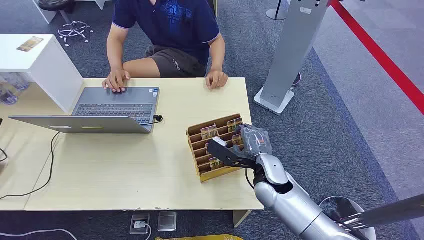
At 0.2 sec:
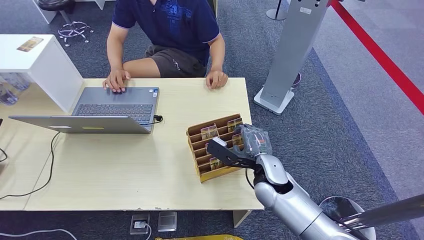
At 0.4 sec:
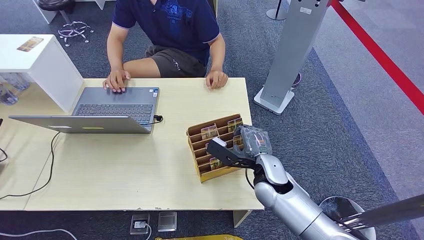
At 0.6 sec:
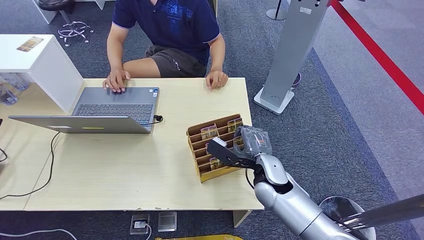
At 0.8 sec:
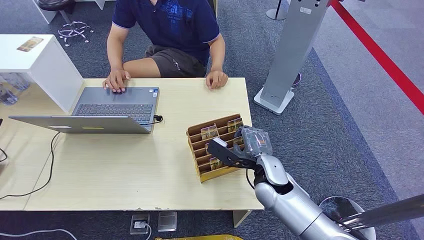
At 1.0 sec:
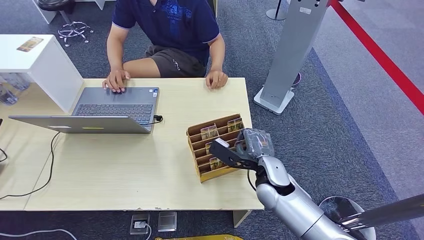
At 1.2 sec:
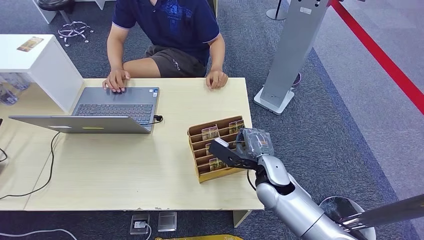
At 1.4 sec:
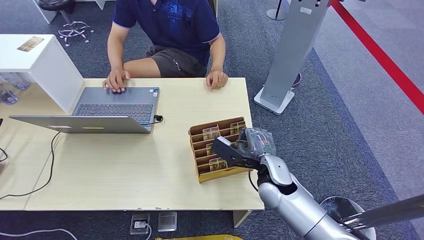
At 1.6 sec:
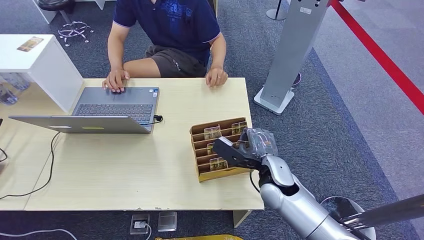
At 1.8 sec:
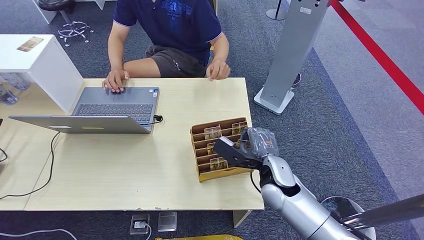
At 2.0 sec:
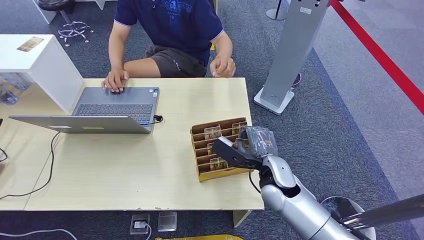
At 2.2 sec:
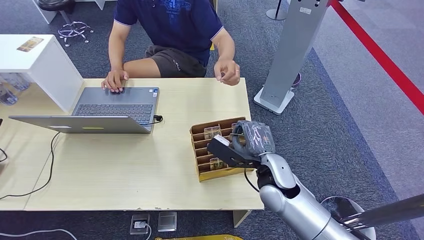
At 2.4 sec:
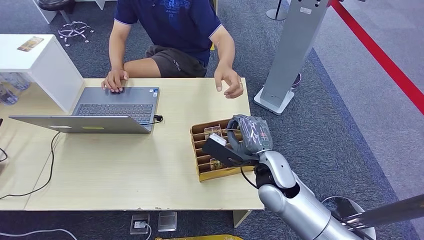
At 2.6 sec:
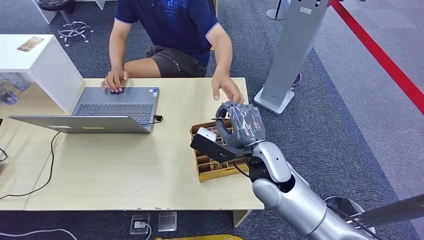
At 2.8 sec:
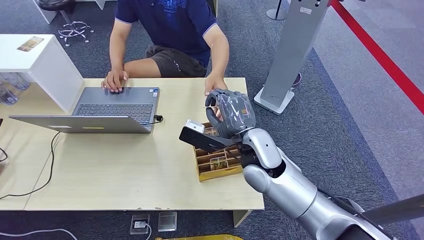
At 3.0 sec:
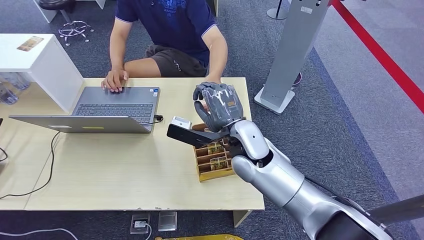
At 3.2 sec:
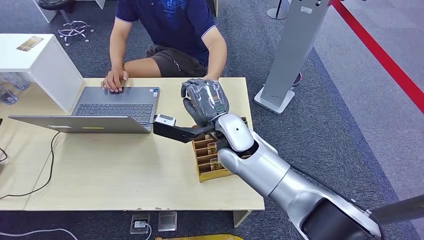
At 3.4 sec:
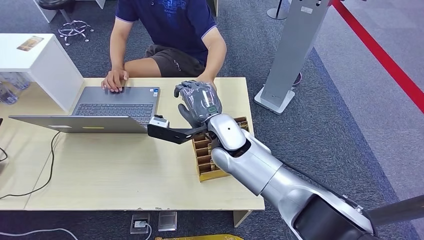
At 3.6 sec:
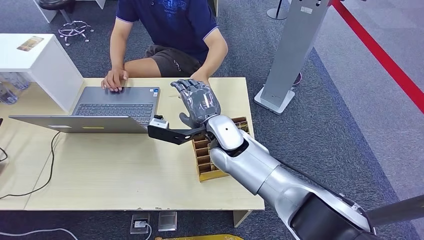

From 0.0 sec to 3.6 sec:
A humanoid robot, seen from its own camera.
Step, from 0.0 sec to 2.2 sec: Pick up the key card from the card box.
Step, from 2.8 sec to 3.6 sec: Hand the key card to the target.
From 1.8 sec to 3.6 sec: The right hand goes about 20 cm to the left, upward and forward.
